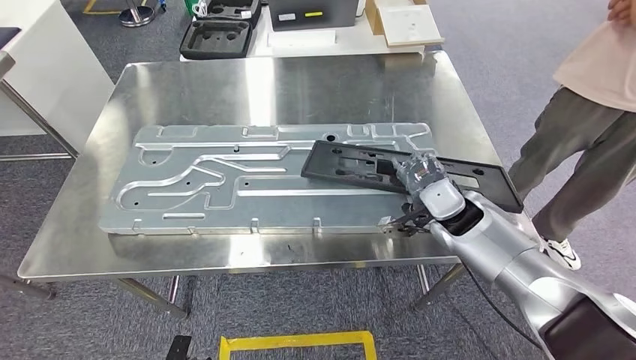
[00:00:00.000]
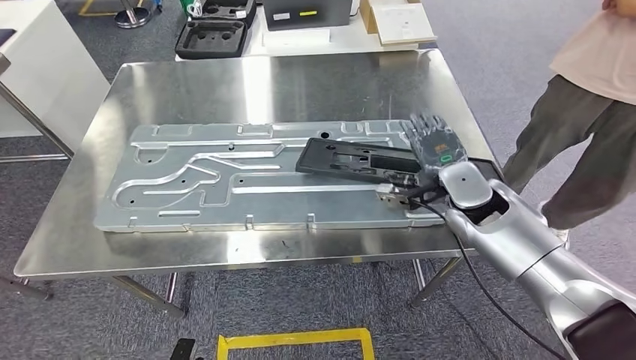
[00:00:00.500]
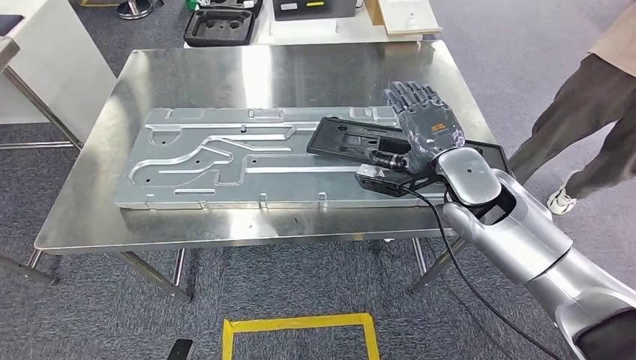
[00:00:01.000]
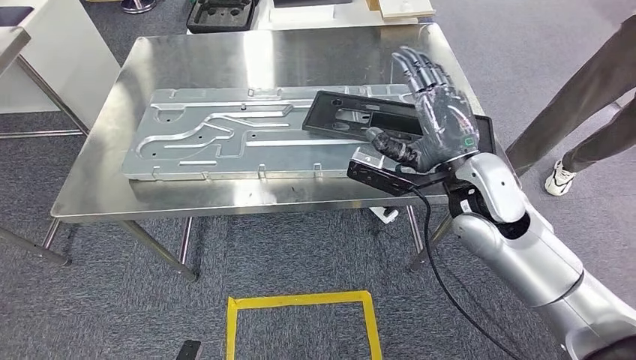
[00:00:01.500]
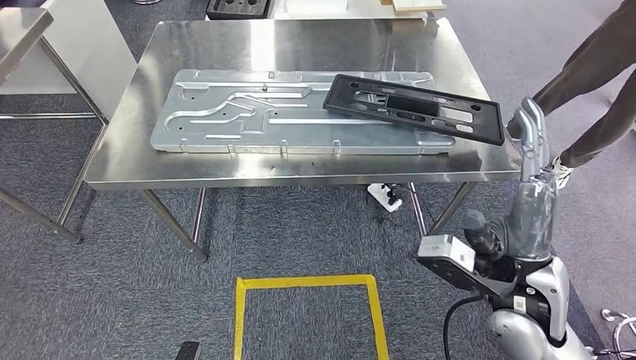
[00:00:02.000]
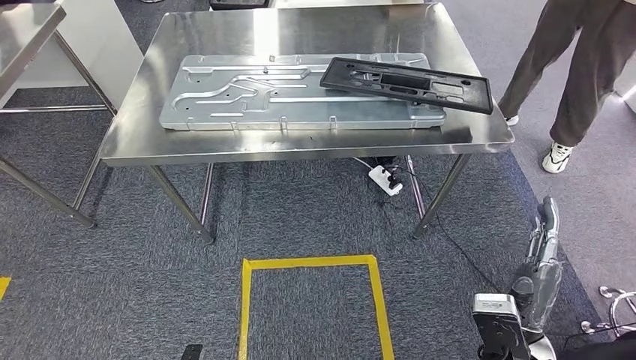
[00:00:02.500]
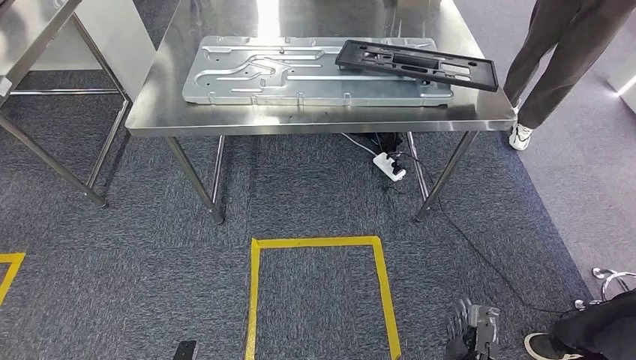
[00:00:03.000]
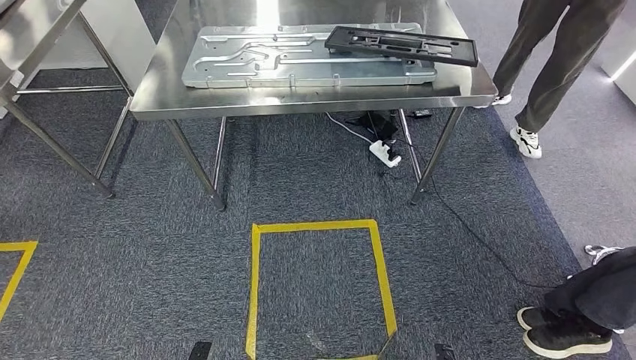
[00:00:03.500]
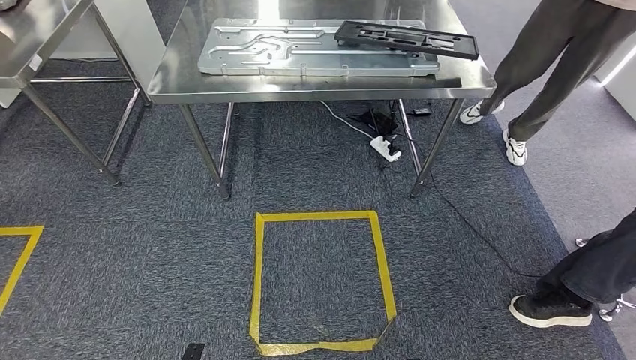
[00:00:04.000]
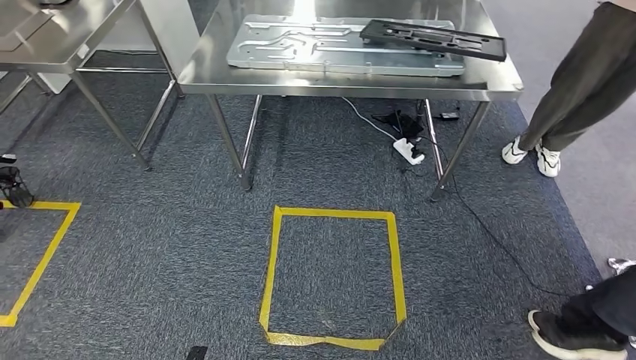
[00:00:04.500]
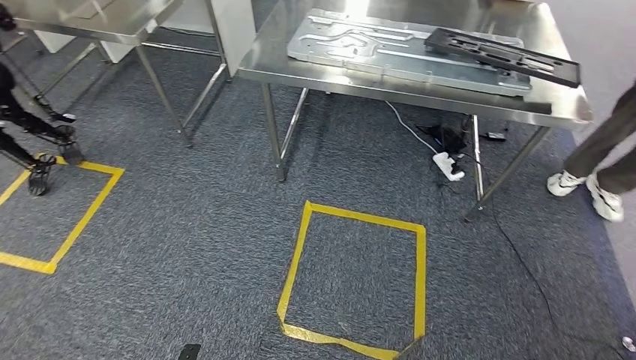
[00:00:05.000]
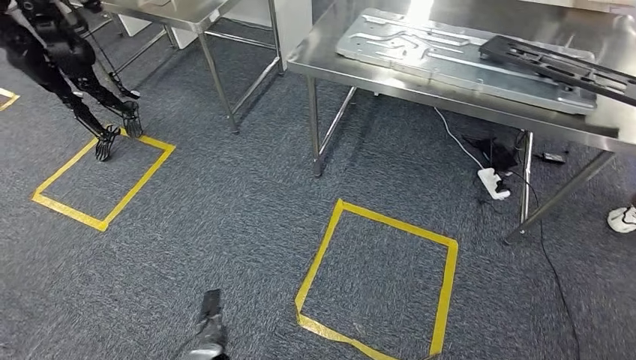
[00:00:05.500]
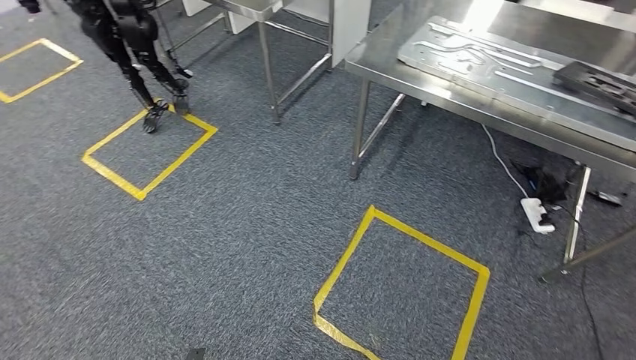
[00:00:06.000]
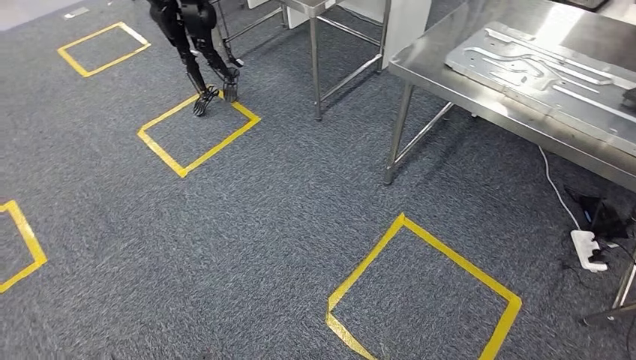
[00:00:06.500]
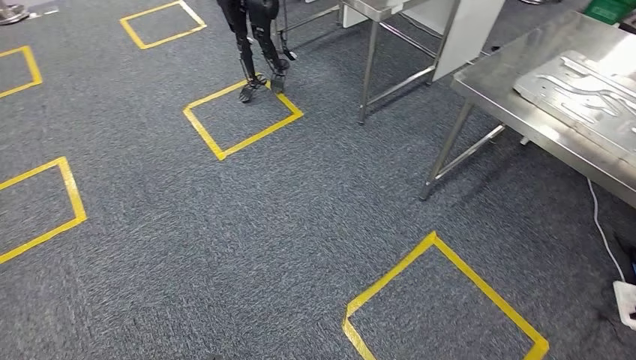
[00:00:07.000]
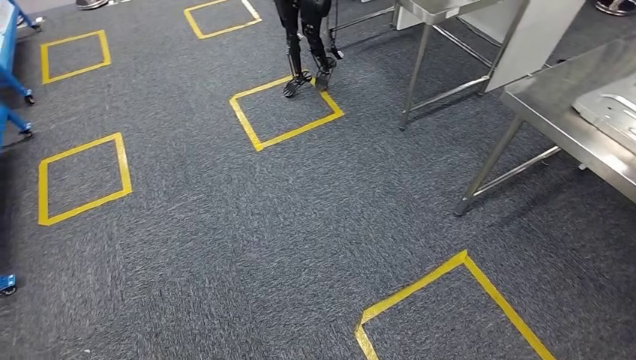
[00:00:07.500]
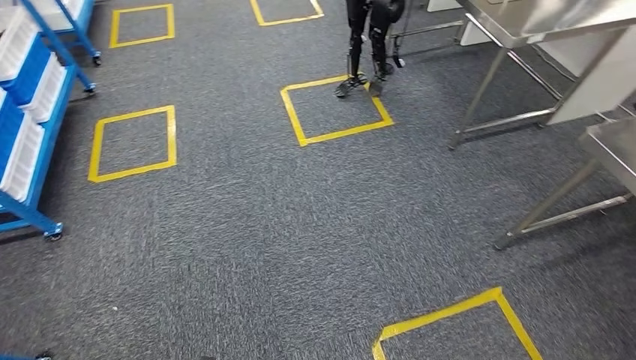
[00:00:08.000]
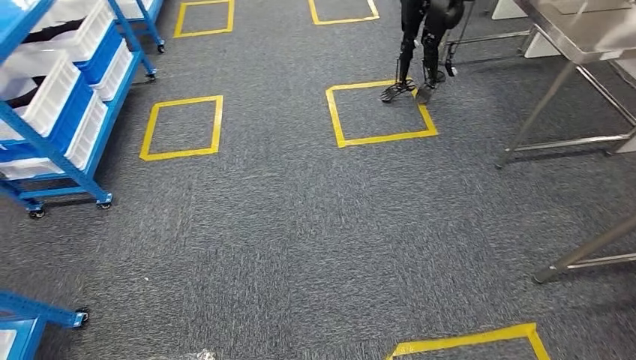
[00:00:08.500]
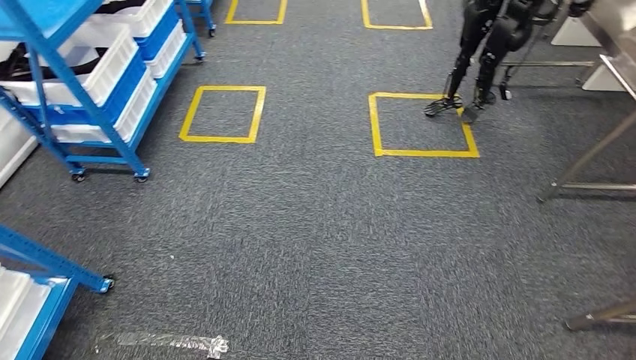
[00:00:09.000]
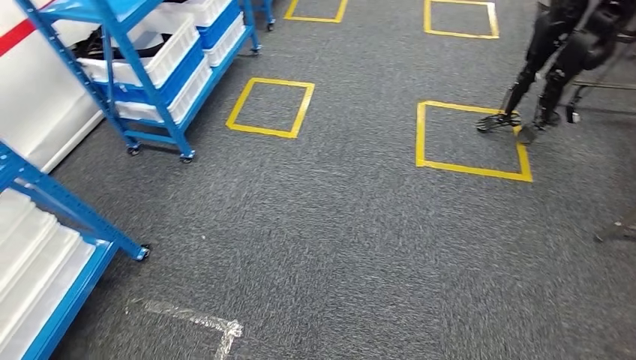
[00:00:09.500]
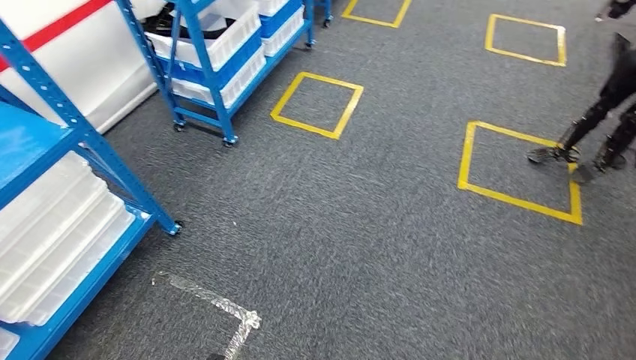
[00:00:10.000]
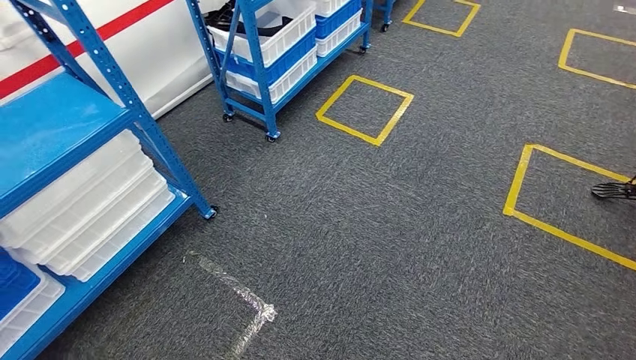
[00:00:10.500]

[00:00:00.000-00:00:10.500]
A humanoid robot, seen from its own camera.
Step, 00:00:00.000 to 00:00:03.500: Insert the large material into the corresponding slot on the workbench.

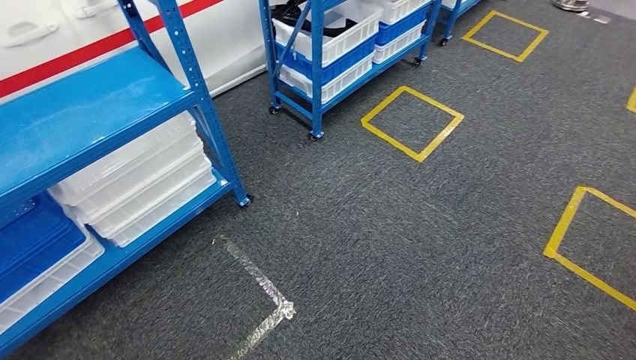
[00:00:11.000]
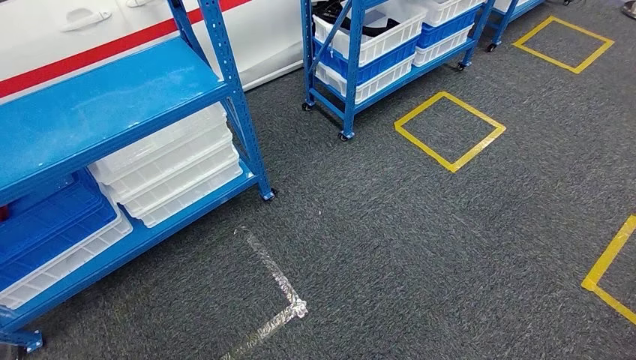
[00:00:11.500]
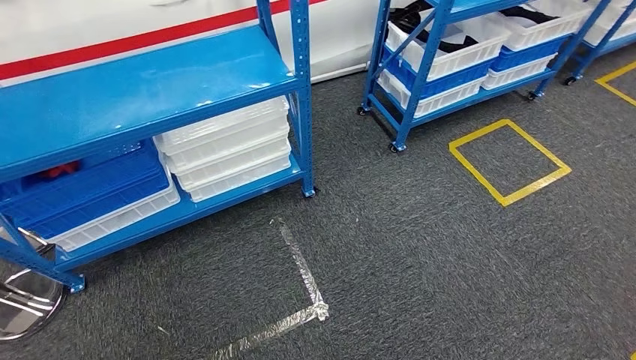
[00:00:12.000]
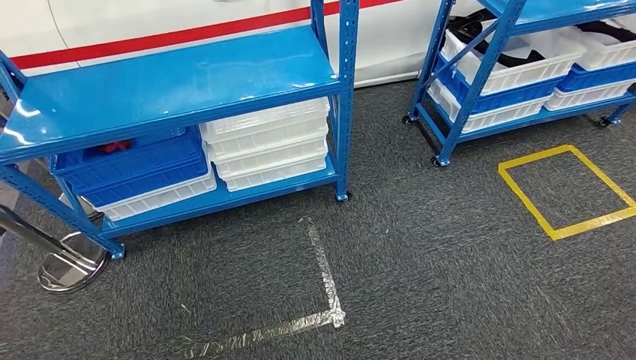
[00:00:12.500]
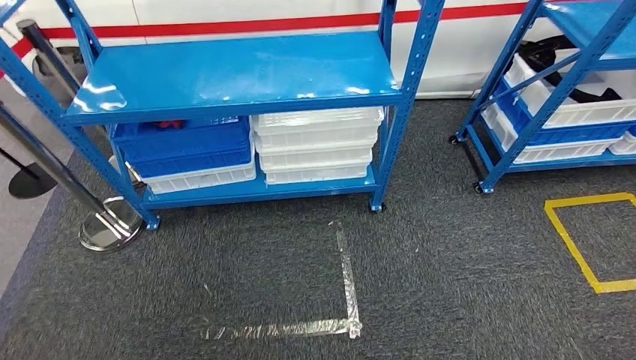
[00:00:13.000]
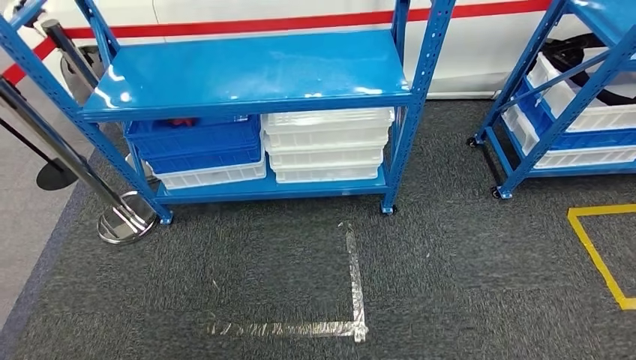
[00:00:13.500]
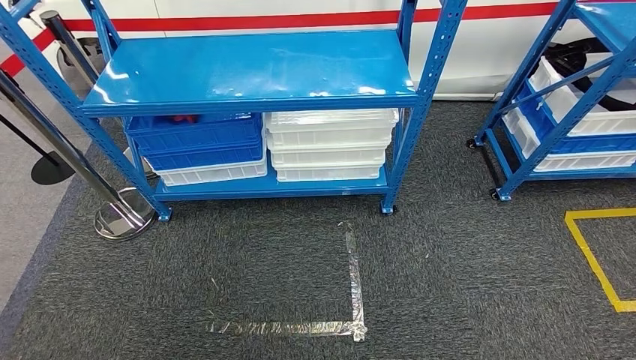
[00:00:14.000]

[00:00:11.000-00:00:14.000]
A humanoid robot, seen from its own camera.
Step, 00:00:11.000 to 00:00:14.000: Move to the initial position of the shelf.
